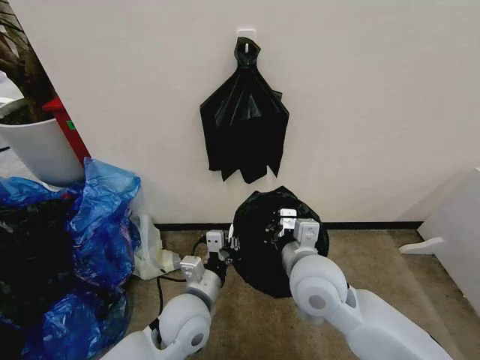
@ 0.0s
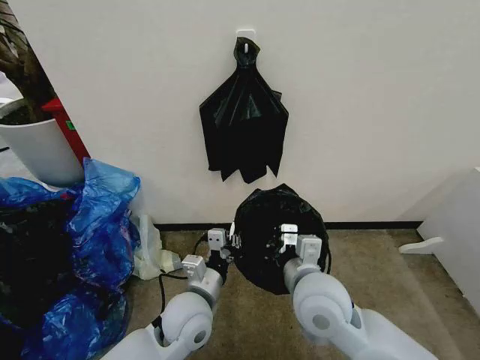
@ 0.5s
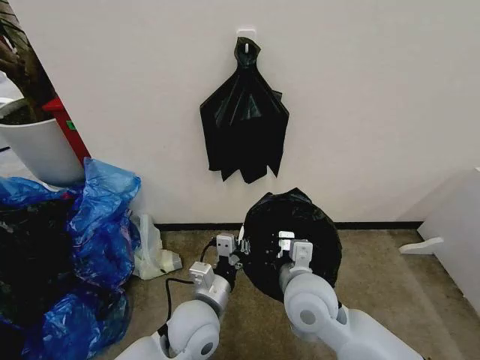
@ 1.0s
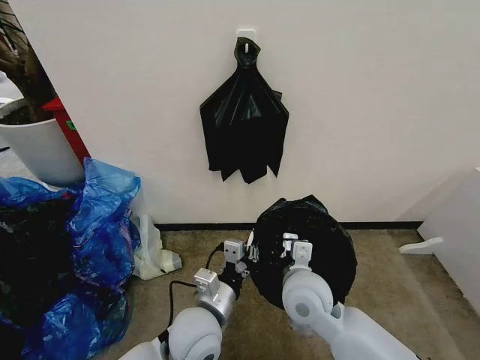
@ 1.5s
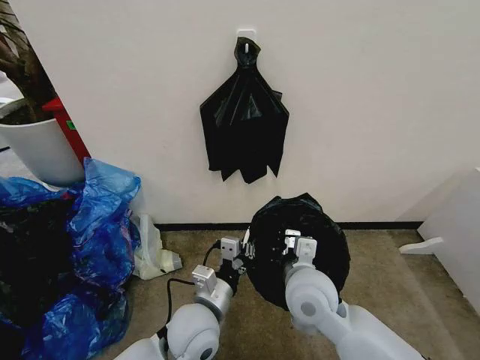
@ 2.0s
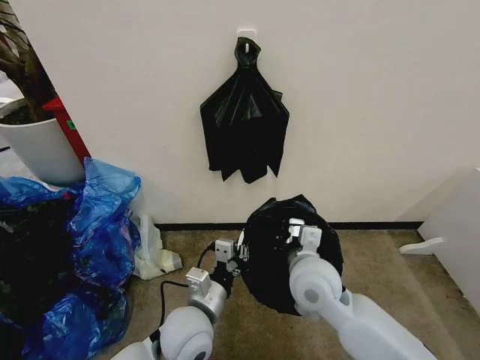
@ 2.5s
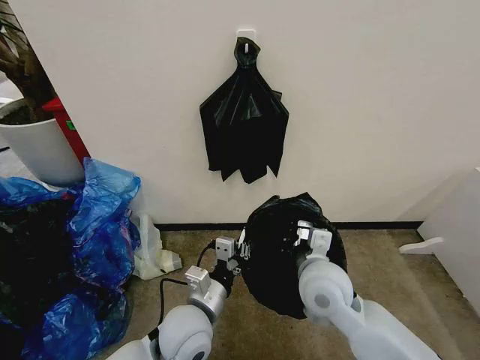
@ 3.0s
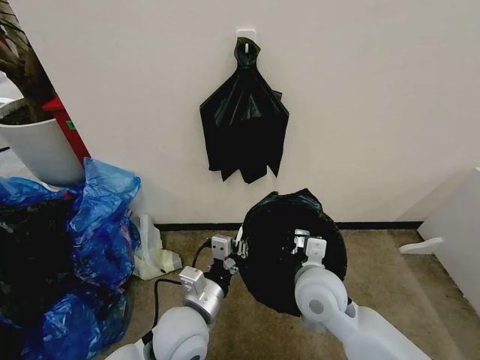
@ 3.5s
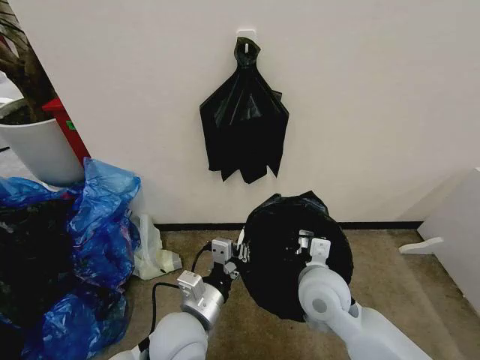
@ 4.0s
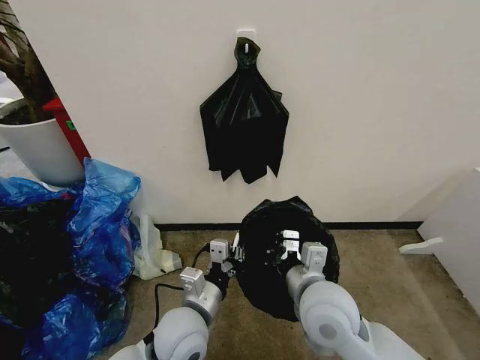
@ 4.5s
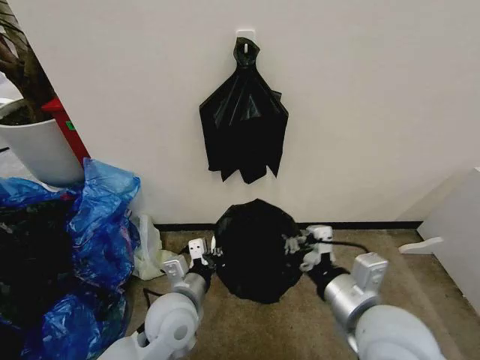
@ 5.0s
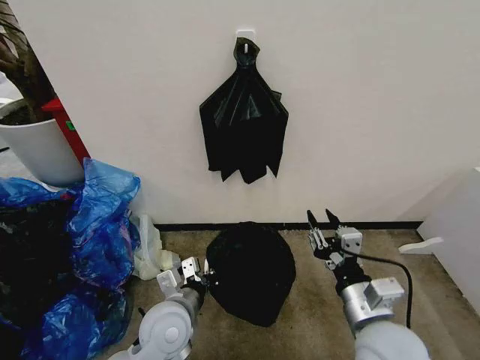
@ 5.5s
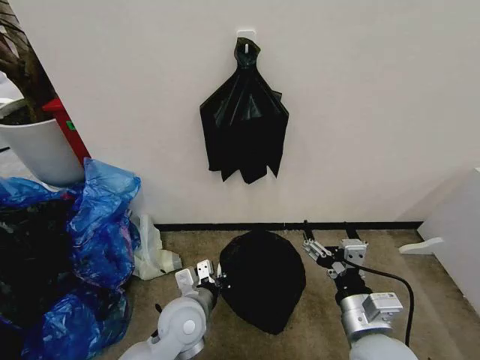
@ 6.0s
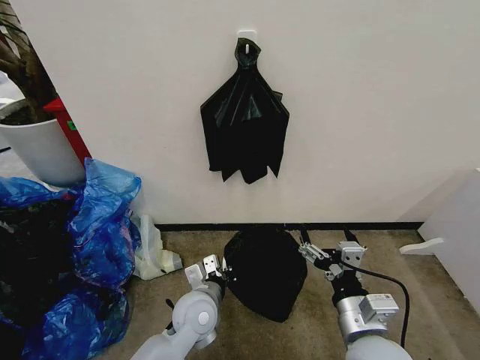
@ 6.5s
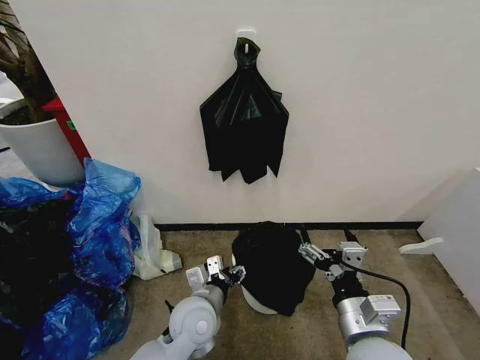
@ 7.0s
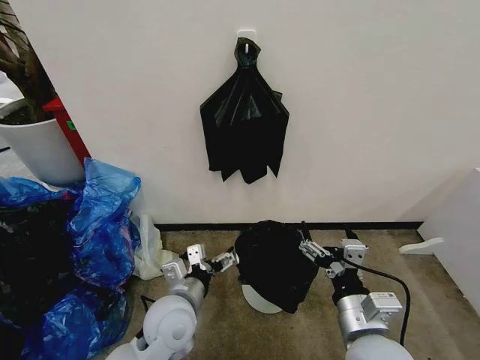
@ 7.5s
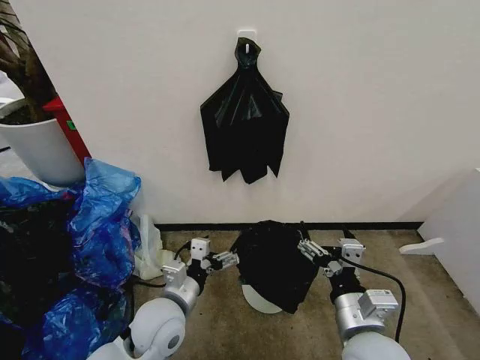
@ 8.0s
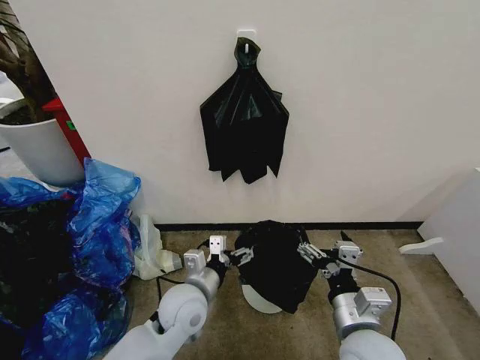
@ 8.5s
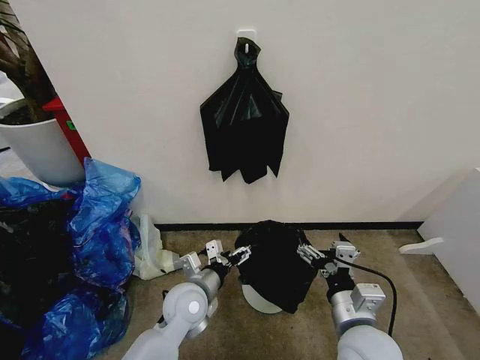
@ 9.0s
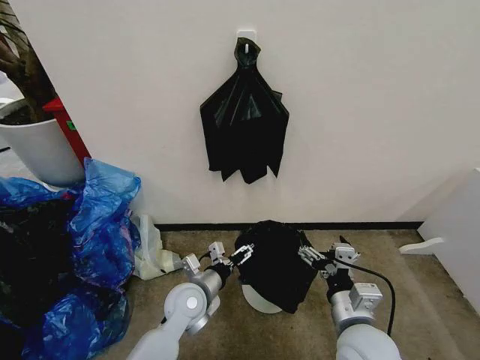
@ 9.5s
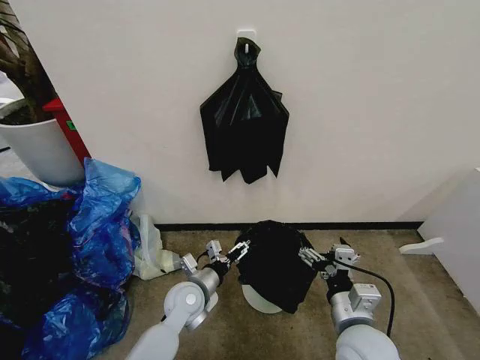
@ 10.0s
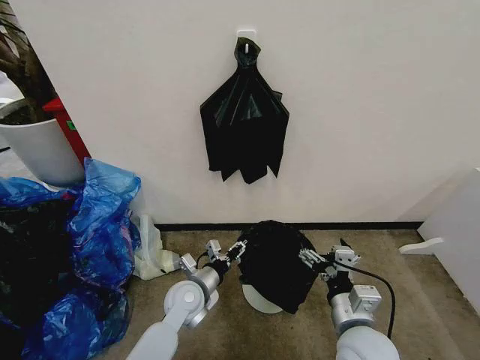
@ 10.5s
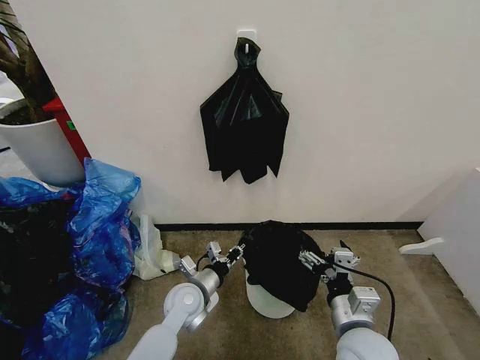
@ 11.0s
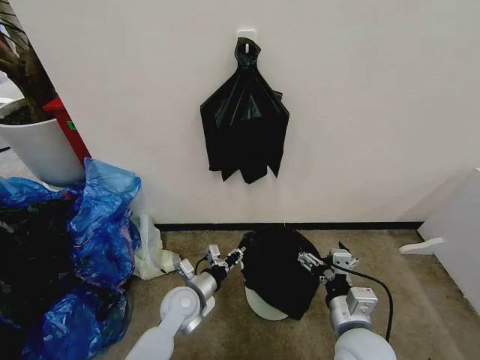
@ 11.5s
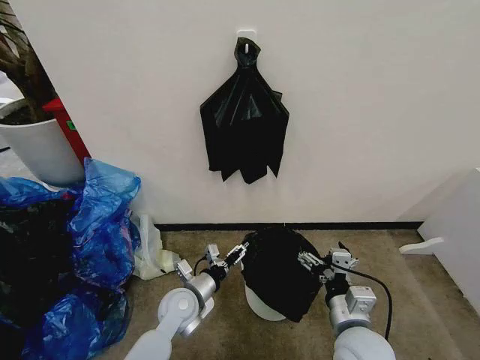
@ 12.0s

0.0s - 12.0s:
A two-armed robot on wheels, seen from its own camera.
Task of the whole recording: Place the garbage bag over the trash bin.
2.0s - 4.0s: The grippers make only small movements.
4.0s - 6.0s: The left gripper travels downward by some 5 cm; the right gripper heads backward and to the right, covering roughly 15 cm, and opens its fingers.
6.0s - 8.0s: The left gripper opens up.
8.0s - 10.0s: The left gripper moves downward and forward, some 10 cm.
10.0s - 12.0s: The left gripper closes, then opens again.

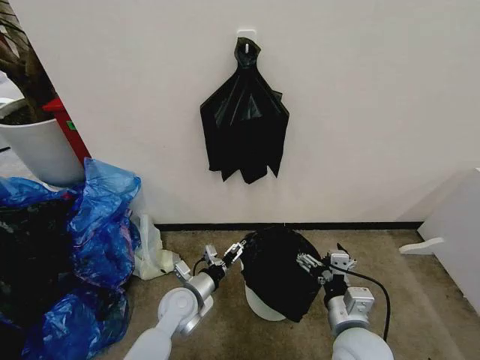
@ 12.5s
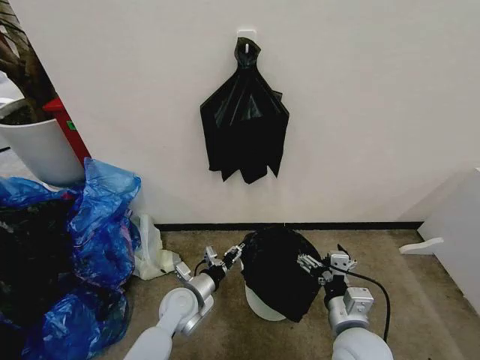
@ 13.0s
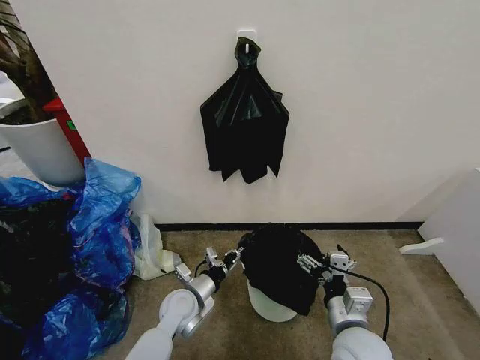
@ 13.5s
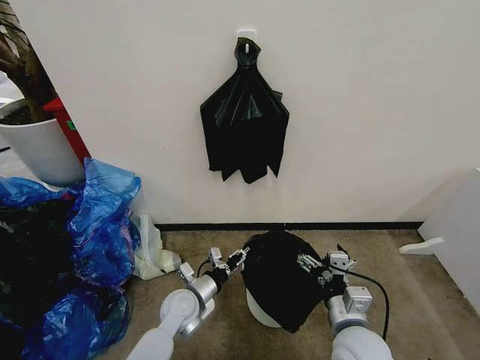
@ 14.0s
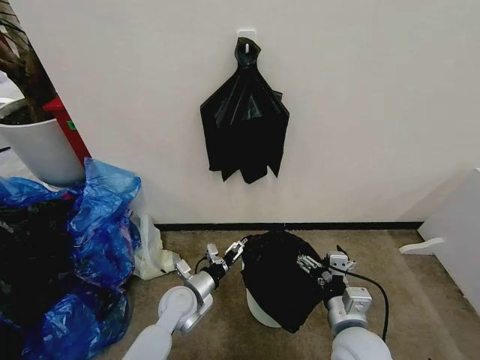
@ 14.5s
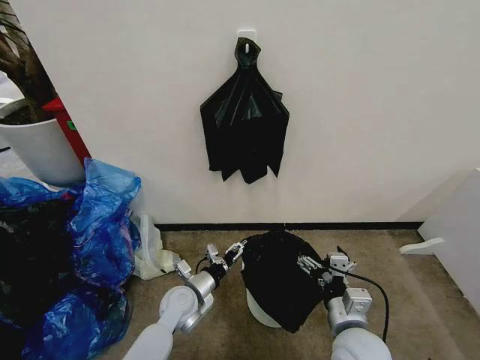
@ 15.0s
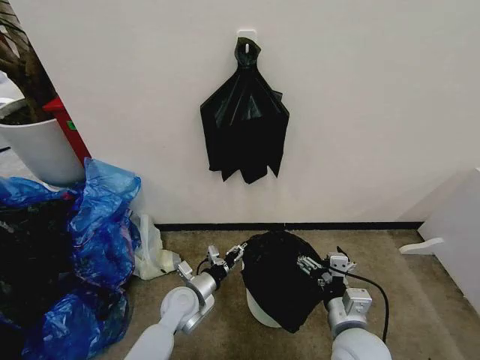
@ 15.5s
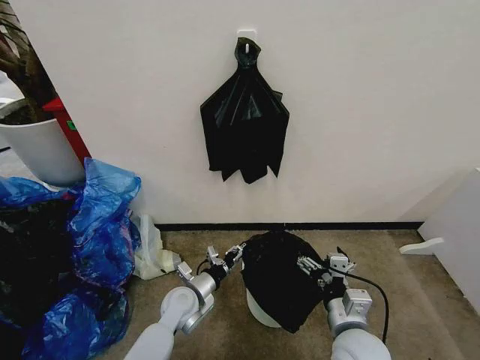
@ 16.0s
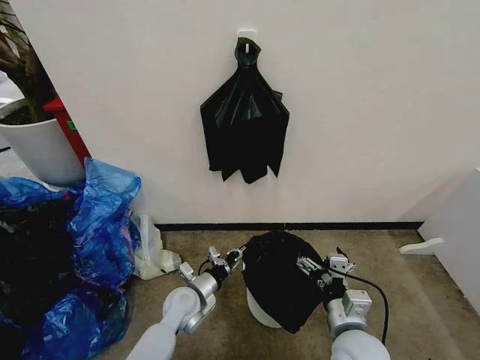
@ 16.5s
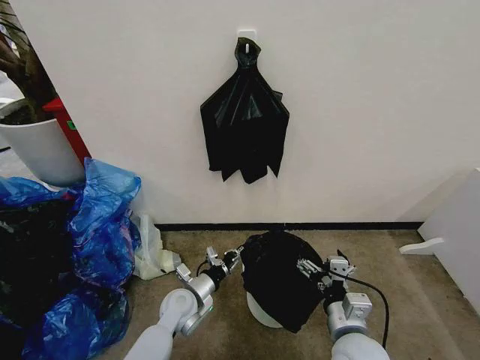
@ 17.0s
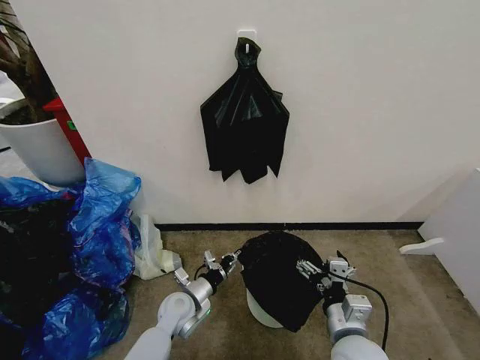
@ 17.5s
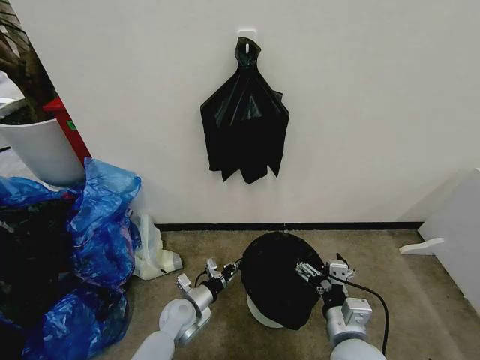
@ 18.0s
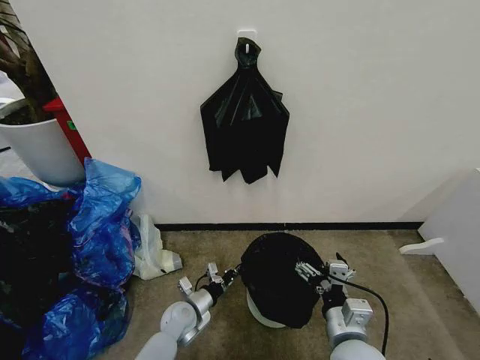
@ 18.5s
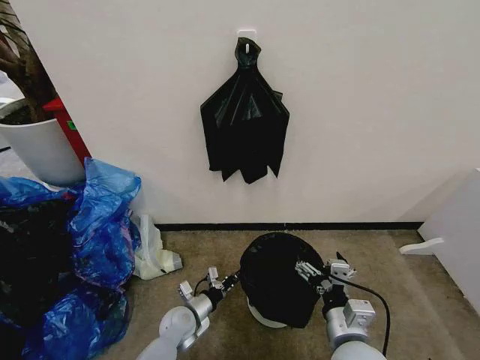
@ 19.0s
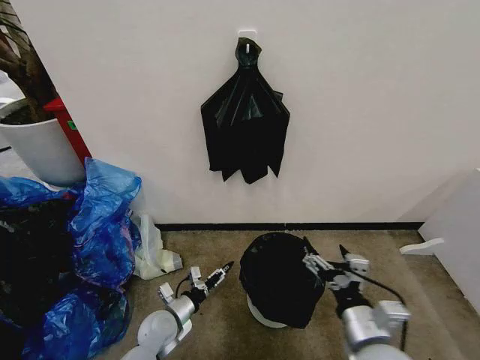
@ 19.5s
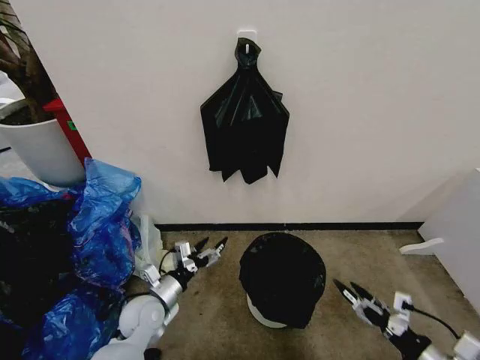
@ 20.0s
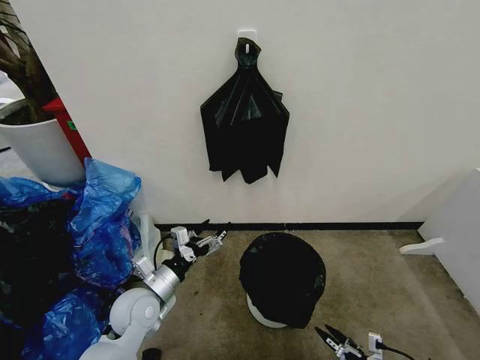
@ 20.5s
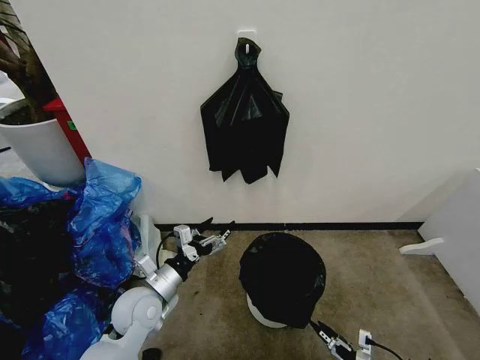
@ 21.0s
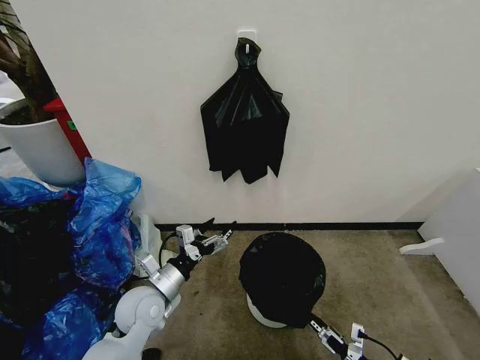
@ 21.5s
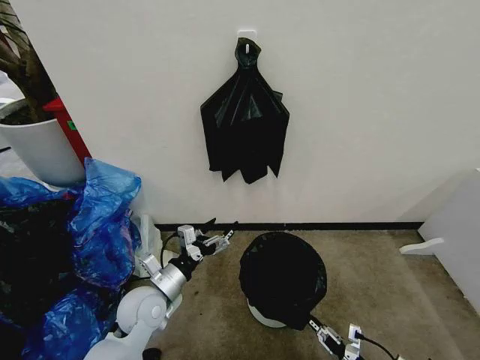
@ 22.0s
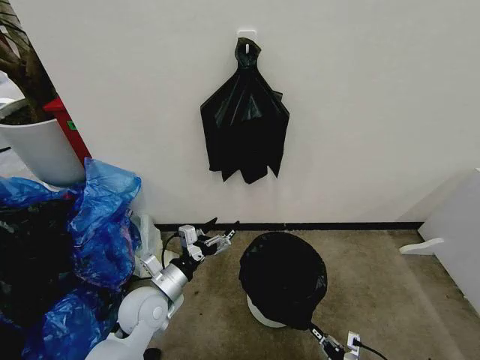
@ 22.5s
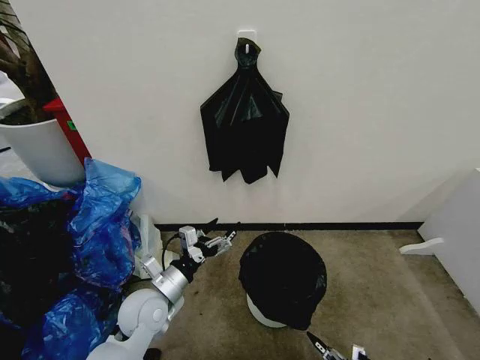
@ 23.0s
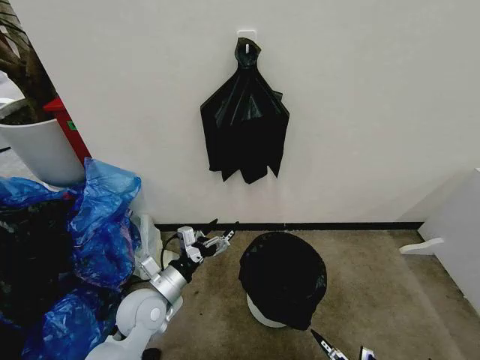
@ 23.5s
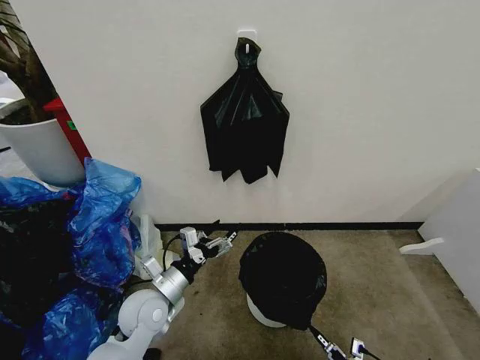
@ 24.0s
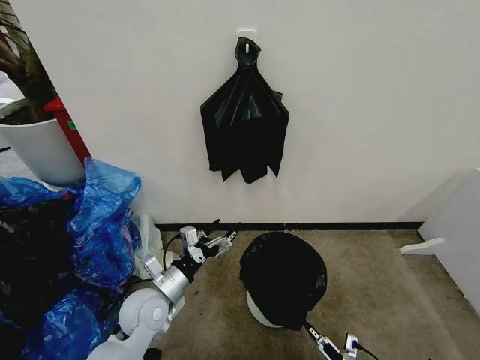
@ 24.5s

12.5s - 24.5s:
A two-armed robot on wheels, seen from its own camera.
Task of the whole recording: Place the garbage bag over the trash bin.
12.5s - 14.5s: The left gripper closes, then reopens.
14.5s - 16.5s: The left gripper closes.
16.5s - 18.5s: The left gripper heads downward, covering roughly 10 cm.
18.5s - 20.5s: The left gripper heads upward, covering roughly 15 cm, and opens, while the right gripper heads to the right and downward, covering approximately 25 cm.
20.5s - 22.5s: The right gripper ends up approximately 5 cm from where it was, and closes.
22.5s - 24.5s: The right gripper opens up.

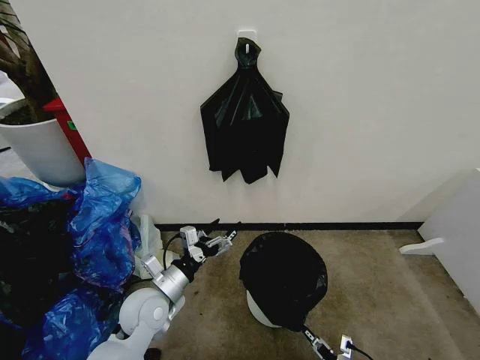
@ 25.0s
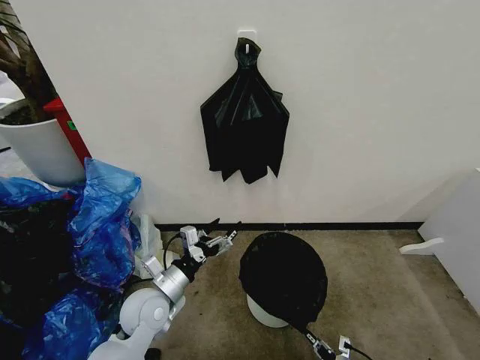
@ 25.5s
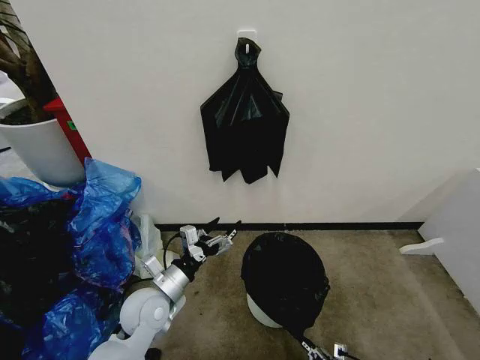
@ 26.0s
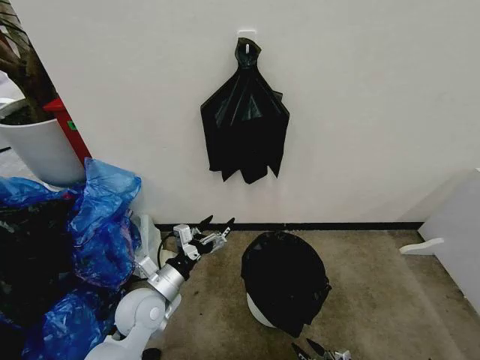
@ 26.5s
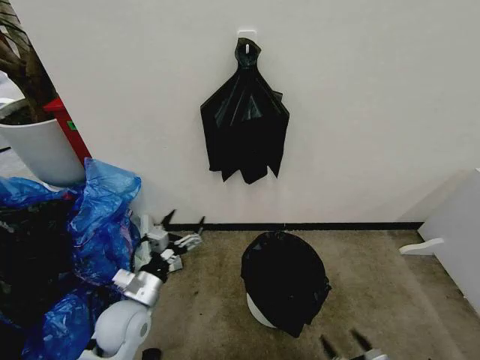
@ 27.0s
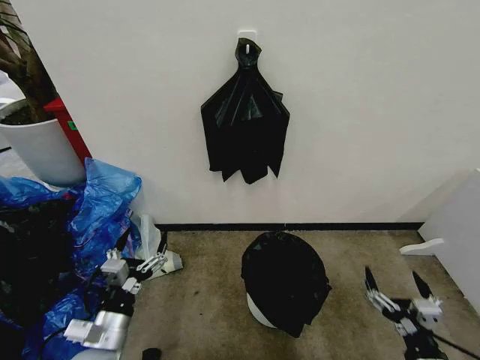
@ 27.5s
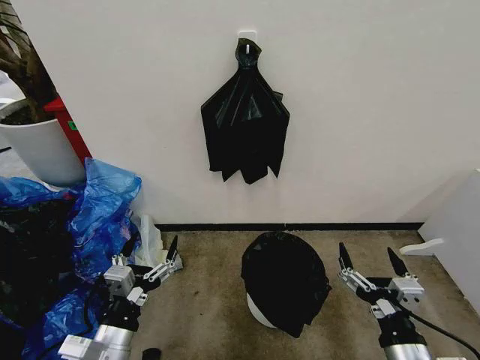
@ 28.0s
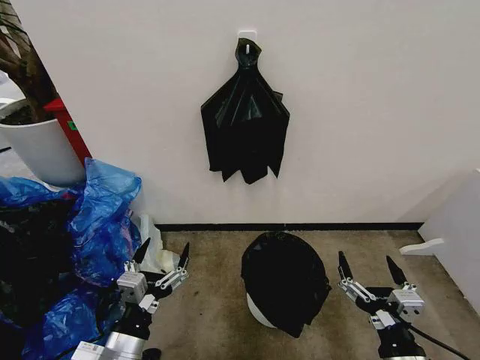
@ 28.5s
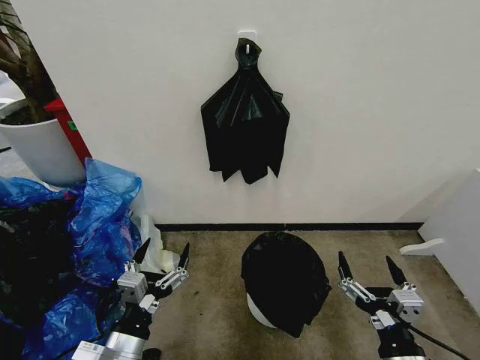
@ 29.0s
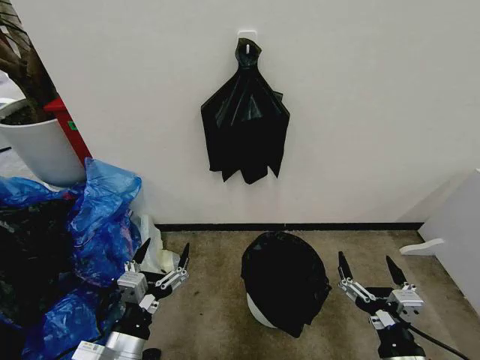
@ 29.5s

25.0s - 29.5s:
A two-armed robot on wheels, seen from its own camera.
Task of the whole recording: Place the garbage bag over the trash bin.
25.0s - 27.0s: The right gripper moves upward and backward, about 10 cm, and opens up.
27.0s - 29.5s: The left gripper shifts about 15 cm backward; the right gripper is displaced upward and to the left by about 20 cm.
